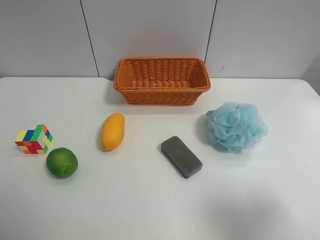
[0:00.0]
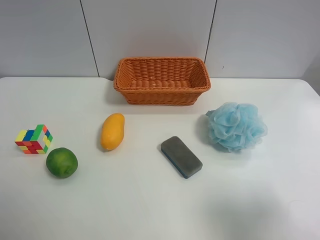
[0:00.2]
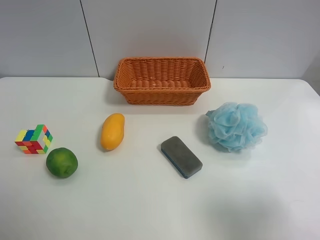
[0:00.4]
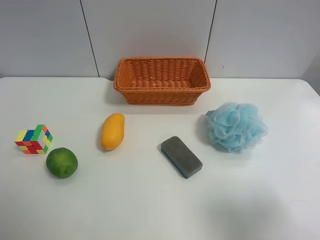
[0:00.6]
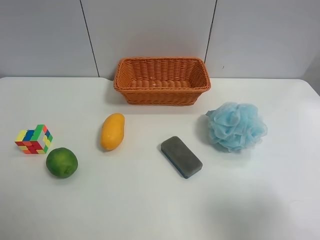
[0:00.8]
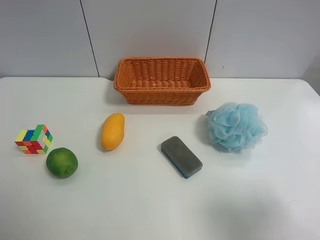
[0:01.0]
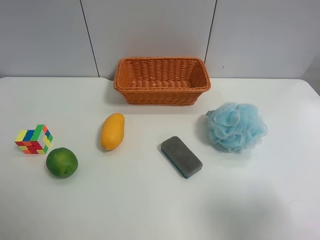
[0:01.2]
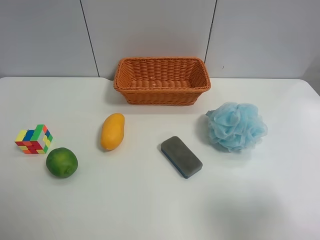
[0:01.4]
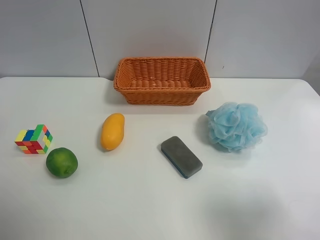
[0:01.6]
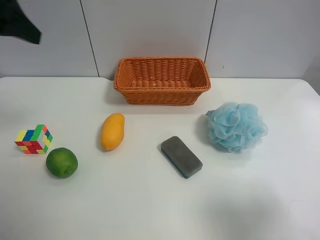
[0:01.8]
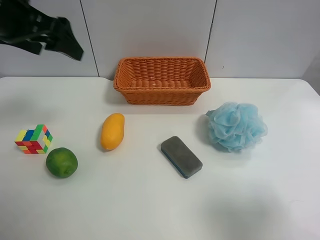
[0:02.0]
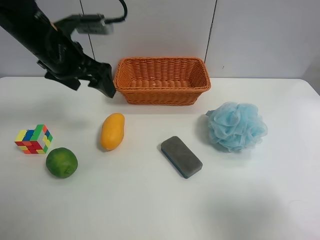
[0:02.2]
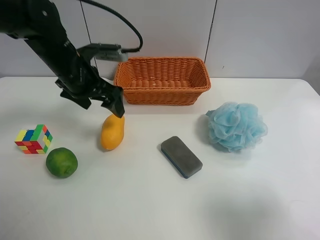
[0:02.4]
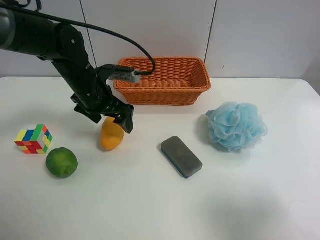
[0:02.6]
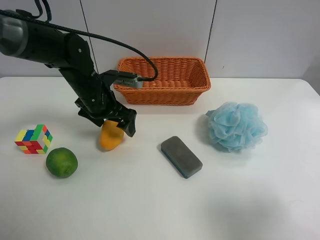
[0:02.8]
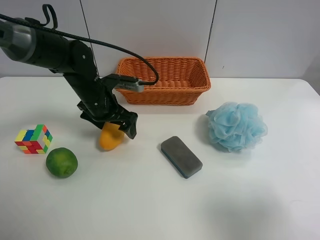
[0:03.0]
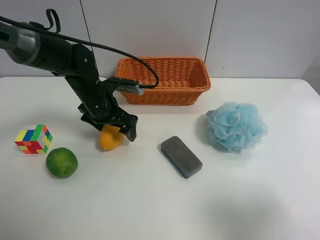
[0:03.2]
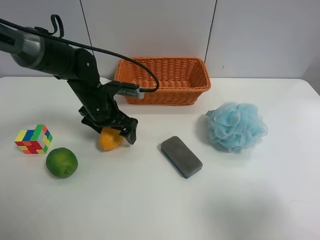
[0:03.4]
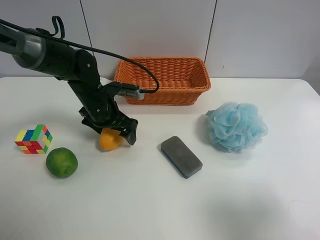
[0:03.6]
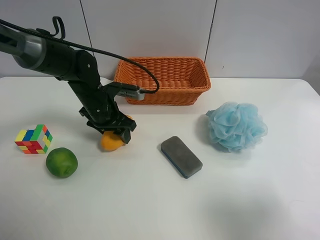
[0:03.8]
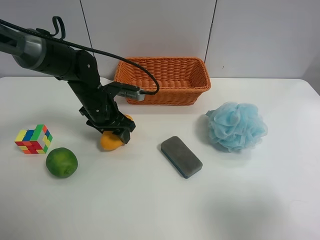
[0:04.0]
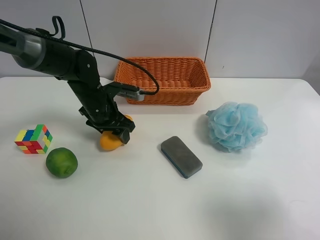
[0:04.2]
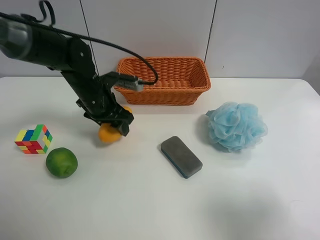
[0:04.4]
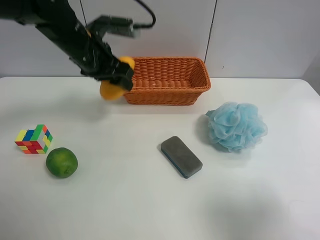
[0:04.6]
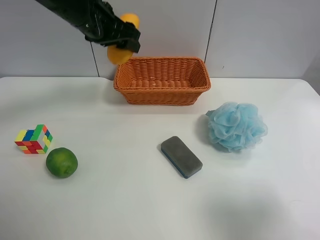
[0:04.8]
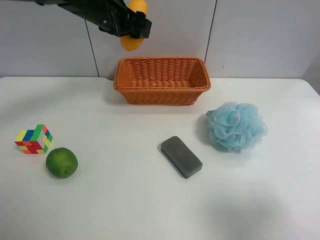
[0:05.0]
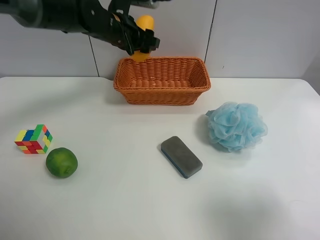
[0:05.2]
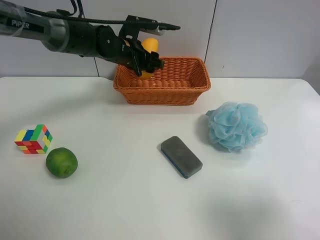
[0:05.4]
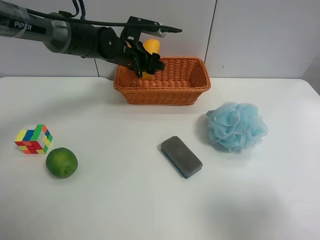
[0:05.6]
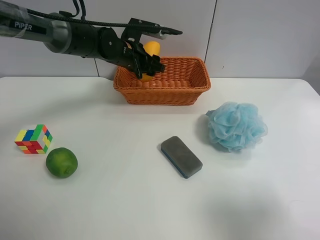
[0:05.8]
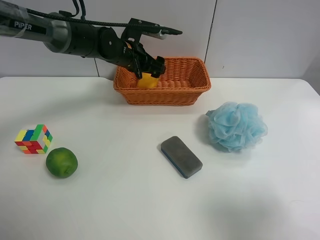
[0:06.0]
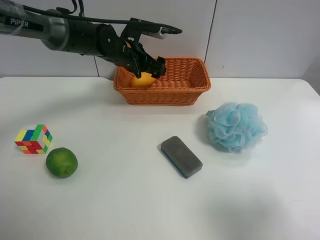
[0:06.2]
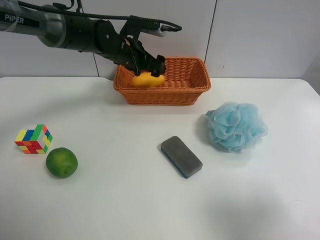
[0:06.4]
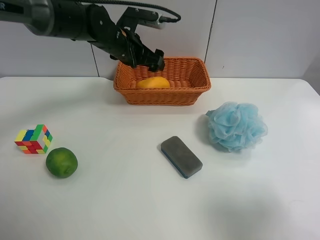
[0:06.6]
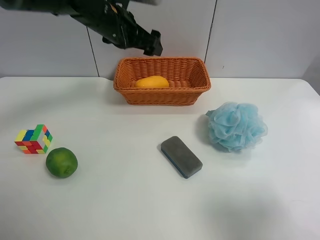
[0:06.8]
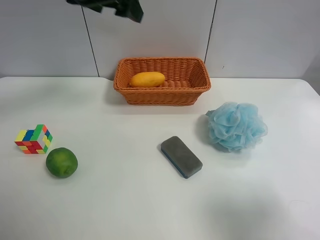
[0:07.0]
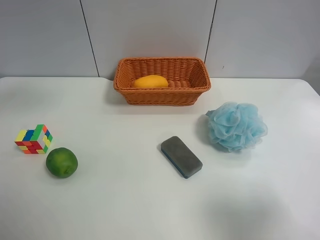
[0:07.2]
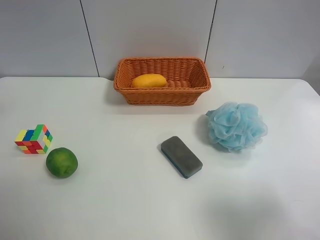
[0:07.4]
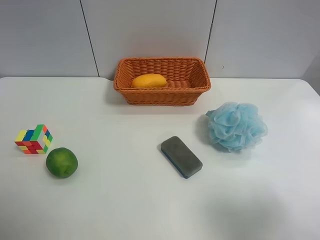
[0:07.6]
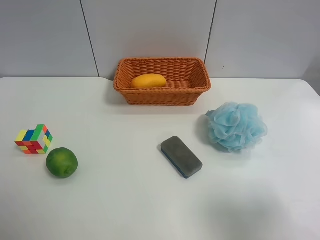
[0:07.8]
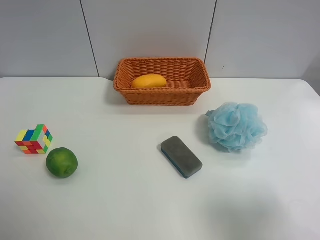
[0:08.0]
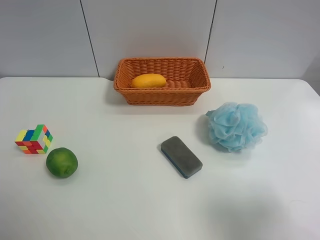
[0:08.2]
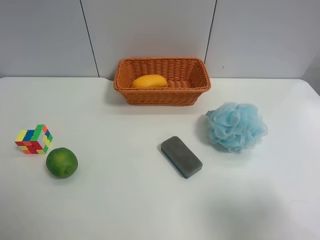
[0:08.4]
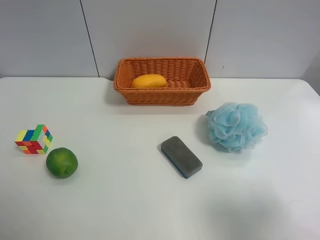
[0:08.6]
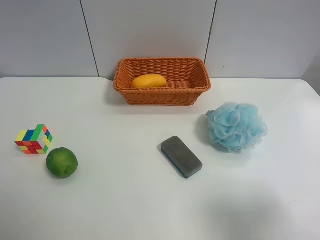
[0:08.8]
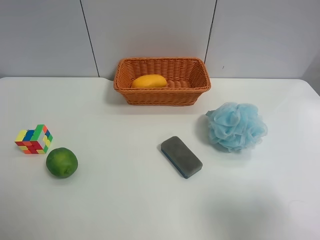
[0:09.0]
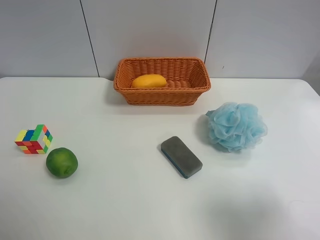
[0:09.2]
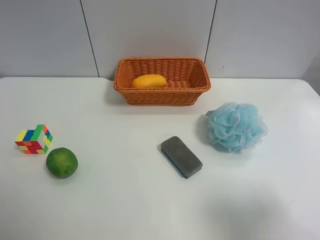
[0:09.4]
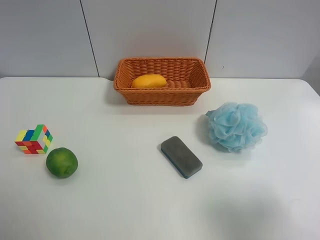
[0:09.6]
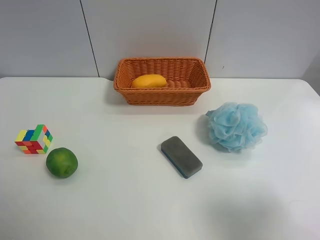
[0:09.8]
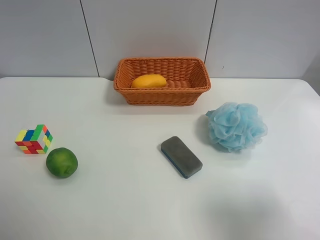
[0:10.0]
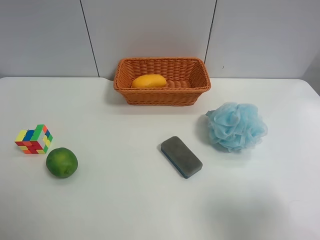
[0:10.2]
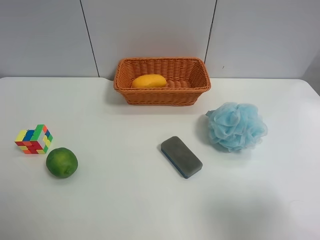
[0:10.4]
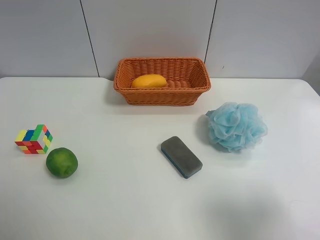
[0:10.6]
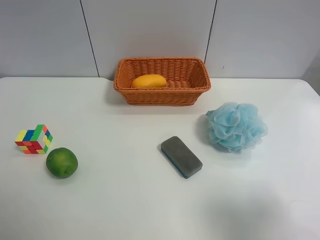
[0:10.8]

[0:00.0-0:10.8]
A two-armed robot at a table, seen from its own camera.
Task of the whole recording: Randomly grab green lemon or mangoes from the table and put them in a basket.
Step, 0:00.0 to 0:04.0: Grasp the mango with the left gripper.
Step, 0:04.2 to 0:06.8: Place the mango into the basket with the left gripper.
0:01.6 to 0:03.0: The left gripper is displaced downward, forward and to the right by some 35 cm.
0:03.0 to 0:04.6: The left gripper heads upward, covering roughly 10 cm, and closes.
0:04.6 to 0:06.2: The left gripper travels forward, downward and to the right by about 10 cm, and opens up.
0:06.2 to 0:07.8: The left gripper travels backward, upward and to the left by roughly 50 cm.
0:09.2 to 0:10.8: Both grippers stay about where they are.
